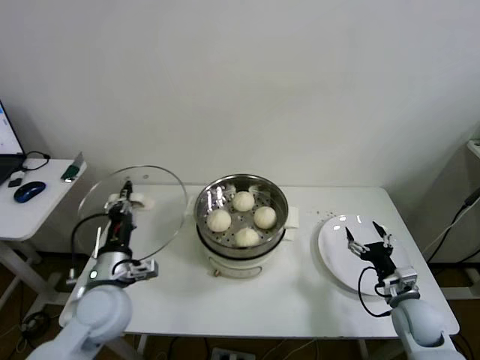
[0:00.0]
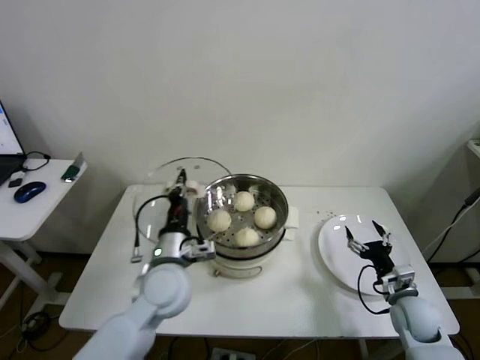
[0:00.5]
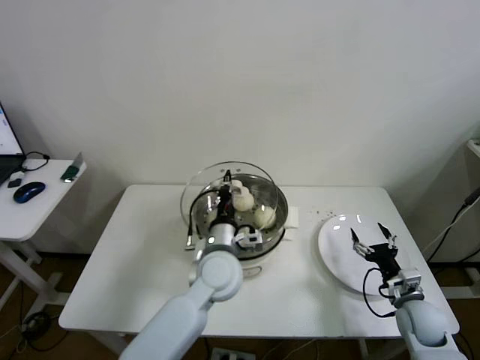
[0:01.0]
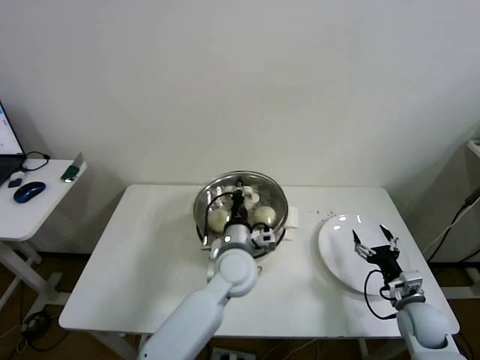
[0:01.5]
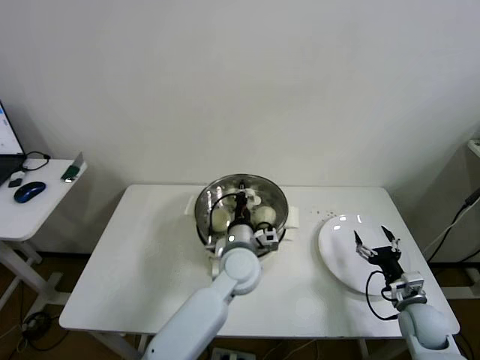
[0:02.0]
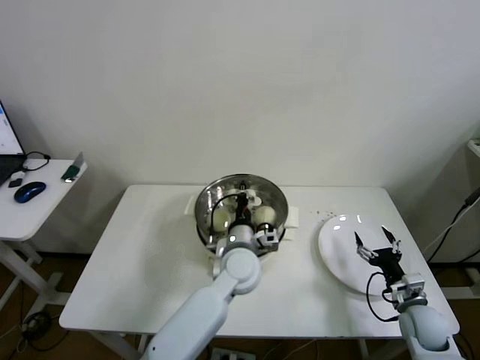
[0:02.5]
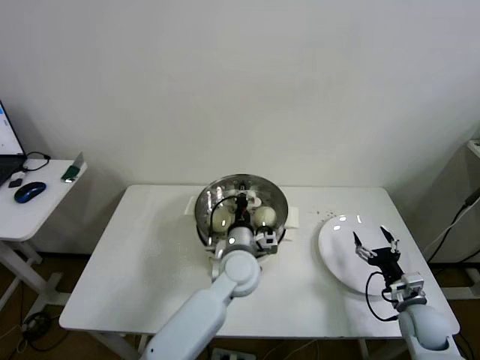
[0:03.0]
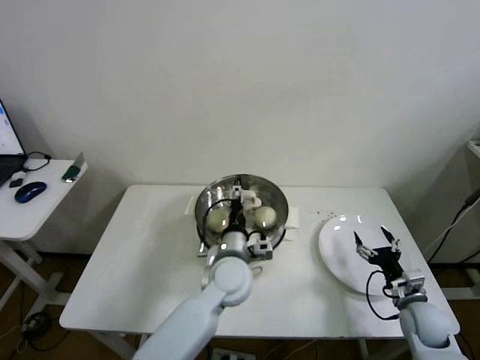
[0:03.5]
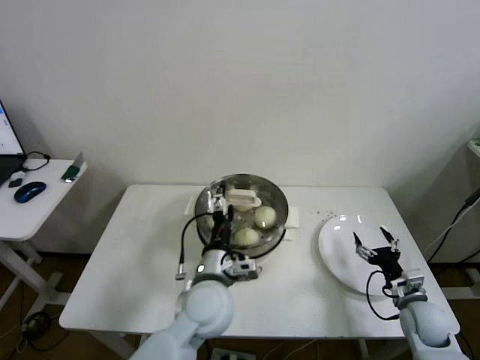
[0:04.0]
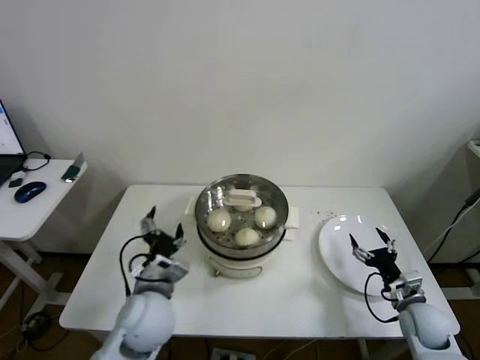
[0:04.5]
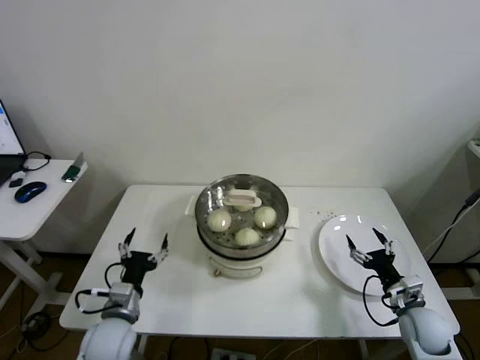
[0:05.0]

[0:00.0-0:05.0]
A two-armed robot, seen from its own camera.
Step, 0:00.0 to 0:03.5: Place the pot lid on the steamer with left gripper.
0:00.0 to 0:02.5: The left gripper travels to the right by roughly 25 cm.
0:02.5 to 0:05.0: The left gripper heads to the left and backward, covering some 30 cm, and opens.

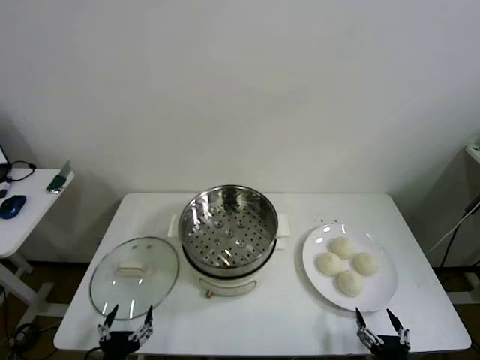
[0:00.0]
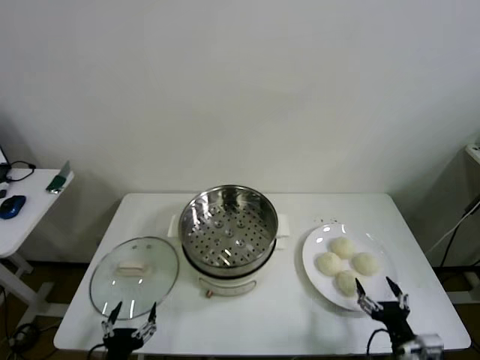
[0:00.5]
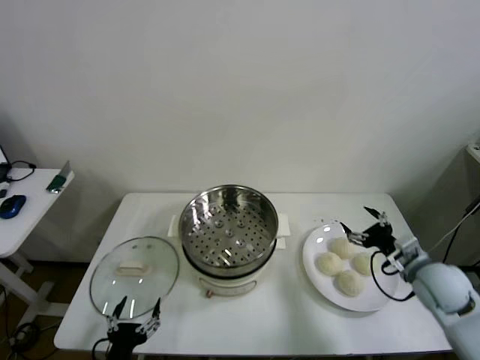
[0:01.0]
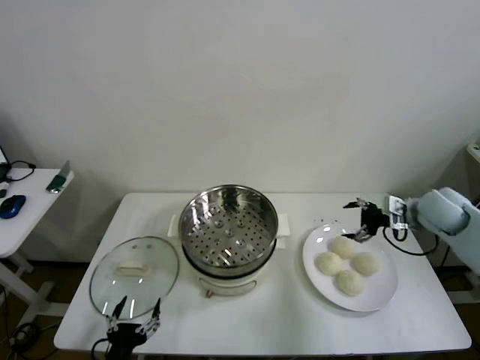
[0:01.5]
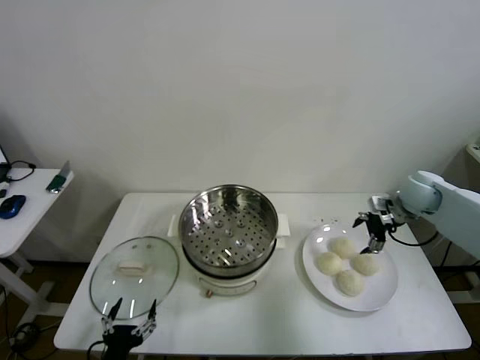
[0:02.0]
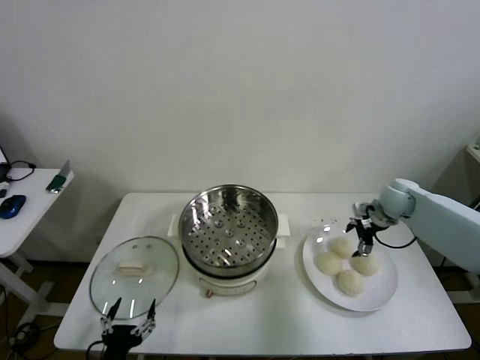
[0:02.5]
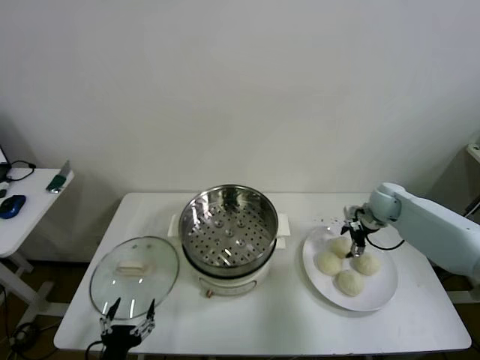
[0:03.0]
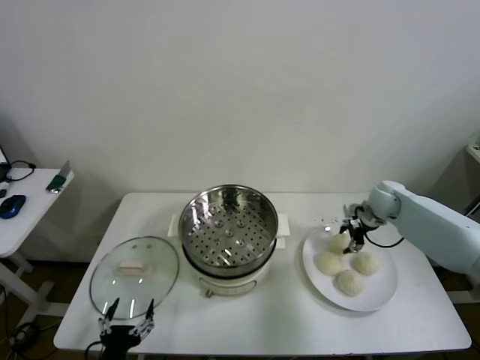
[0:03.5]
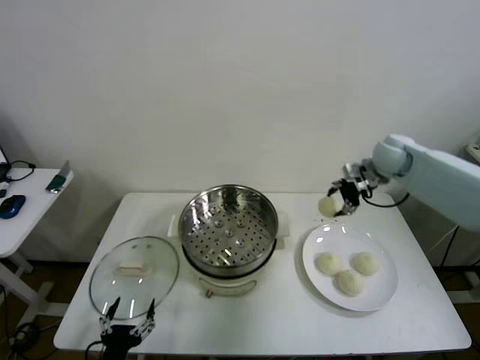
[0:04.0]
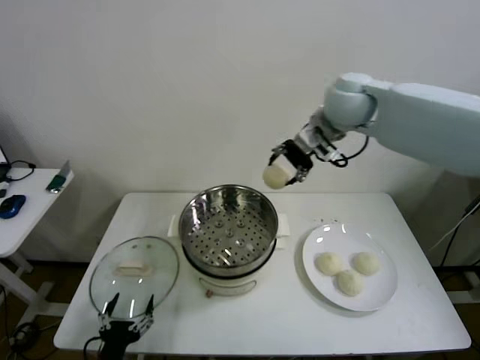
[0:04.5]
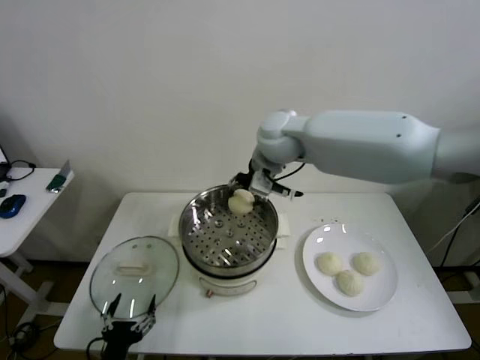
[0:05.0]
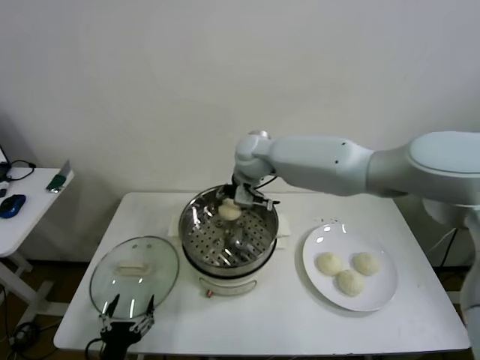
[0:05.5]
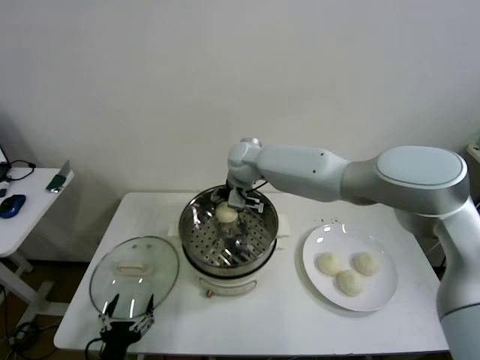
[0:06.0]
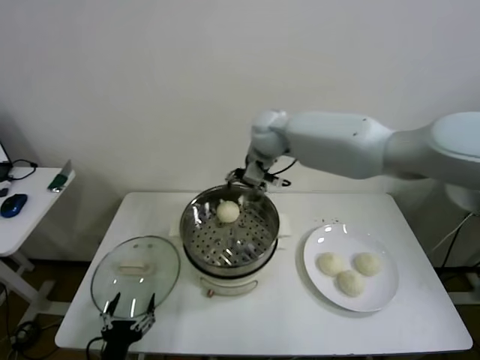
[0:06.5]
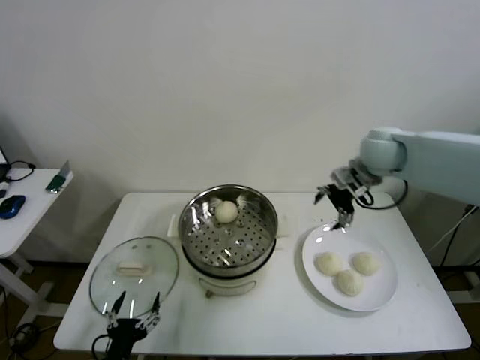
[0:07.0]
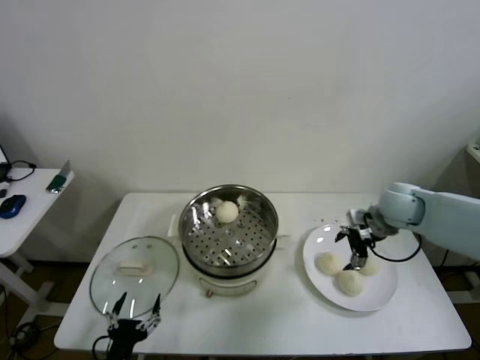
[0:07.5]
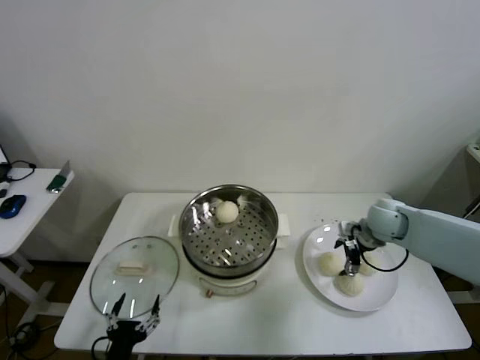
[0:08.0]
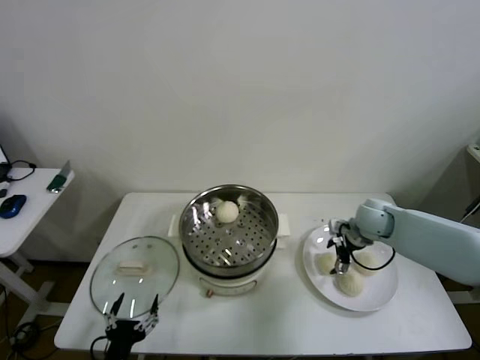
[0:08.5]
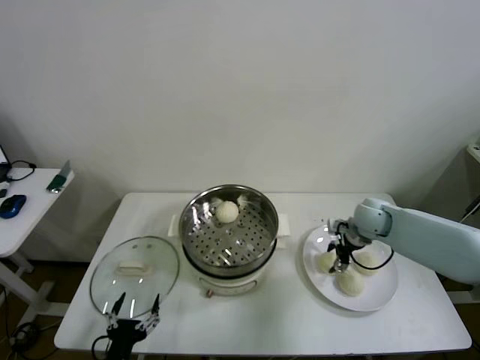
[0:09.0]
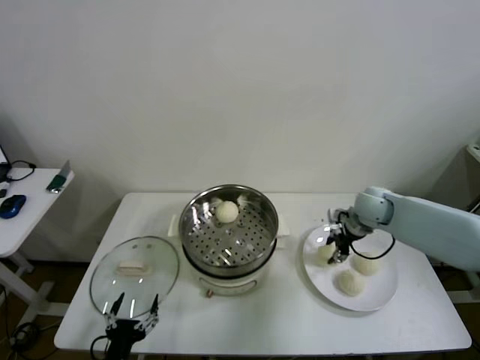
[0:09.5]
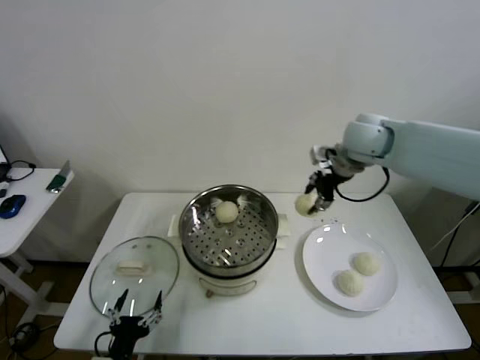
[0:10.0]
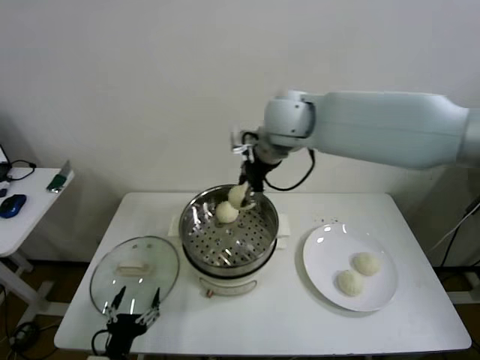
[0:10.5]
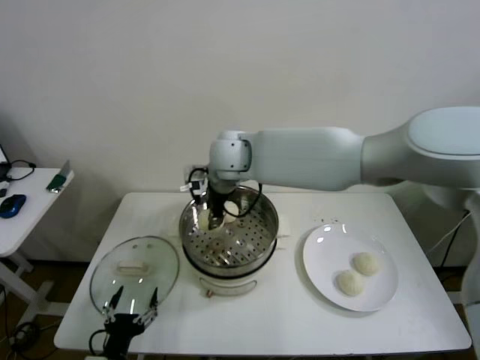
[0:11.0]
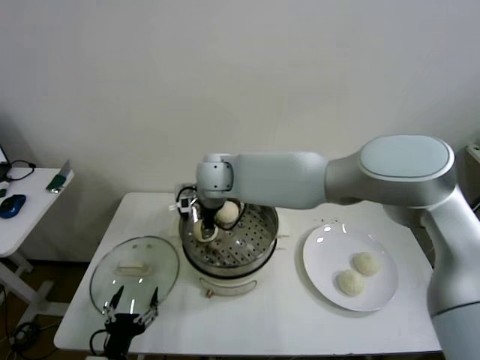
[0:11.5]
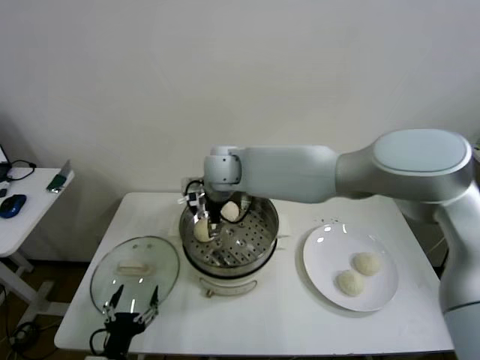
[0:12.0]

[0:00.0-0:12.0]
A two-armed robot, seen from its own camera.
Step, 0:00.0 to 0:03.0: Grasp the baozi in the plate with right gripper.
Step, 0:03.5 to 0:06.0: Place the baozi on the steamer with right gripper.
Step, 0:06.5 to 0:09.0: Grasp the baozi in the plate with right gripper.
Step, 0:09.5 to 0:11.5: Place the baozi on the steamer with right gripper.
0:02.0 to 0:04.0: The right gripper is displaced upward, to the left and forward by some 15 cm, and closes its fingers.
0:04.0 to 0:06.0: The right gripper travels to the left by roughly 35 cm, and opens up.
0:06.0 to 0:08.0: The right gripper heads to the right, covering about 35 cm.
0:08.0 to 0:10.0: The right gripper is displaced upward and to the left by some 25 cm, and closes.
0:10.0 to 0:12.0: The right gripper goes approximately 25 cm to the left, and opens.

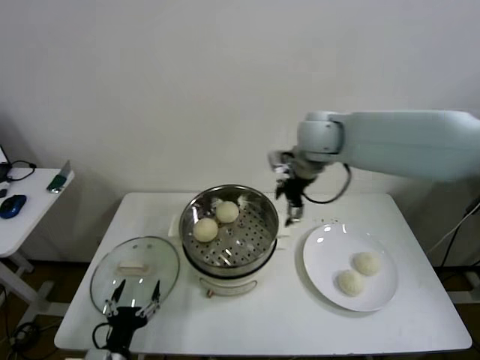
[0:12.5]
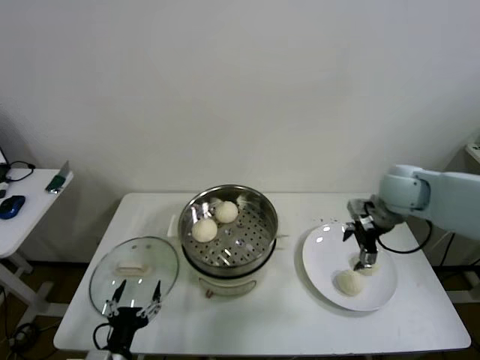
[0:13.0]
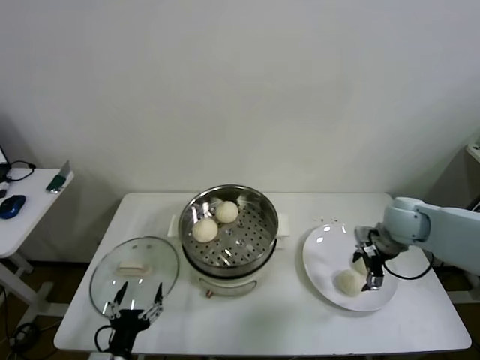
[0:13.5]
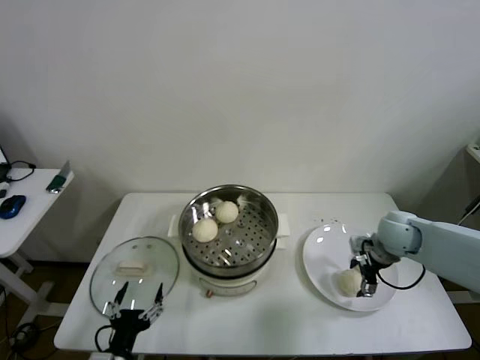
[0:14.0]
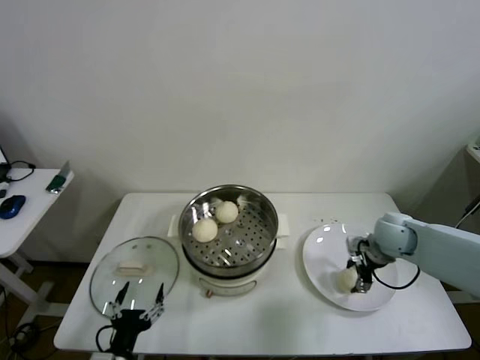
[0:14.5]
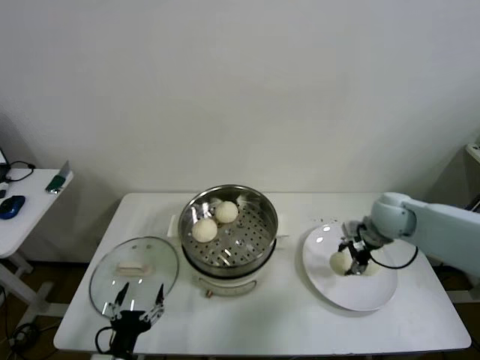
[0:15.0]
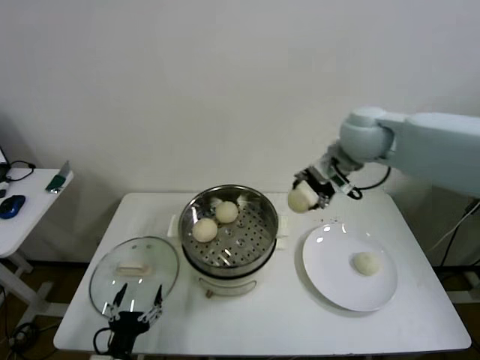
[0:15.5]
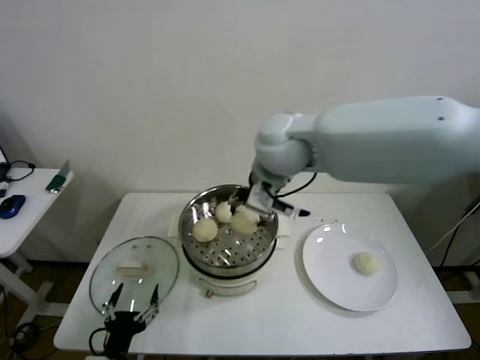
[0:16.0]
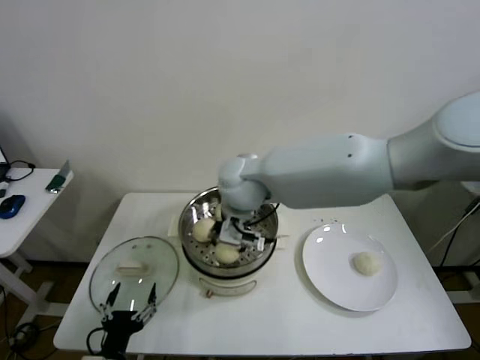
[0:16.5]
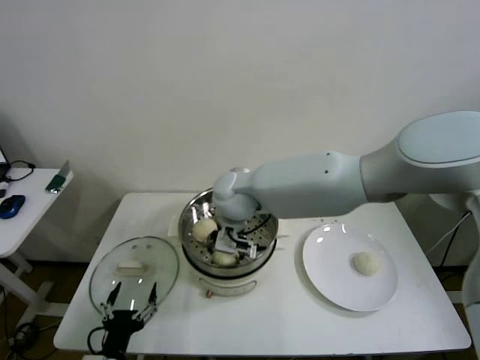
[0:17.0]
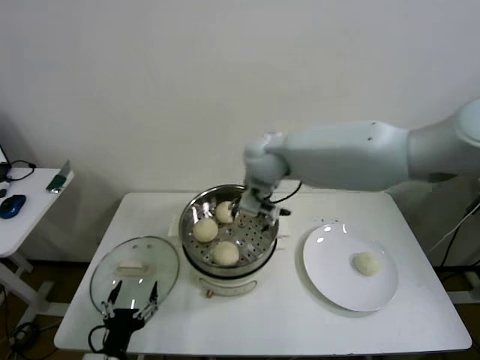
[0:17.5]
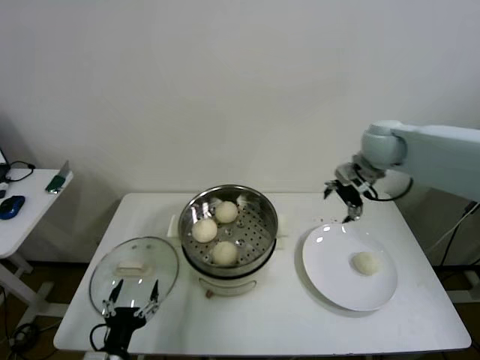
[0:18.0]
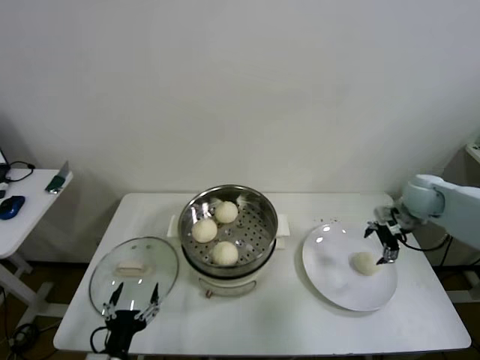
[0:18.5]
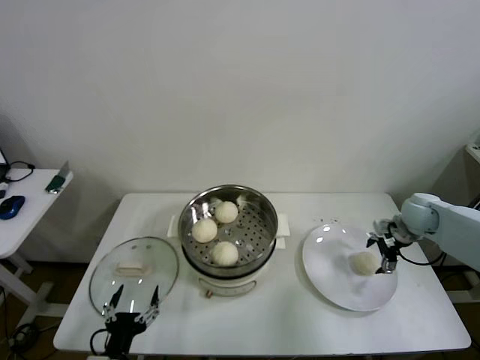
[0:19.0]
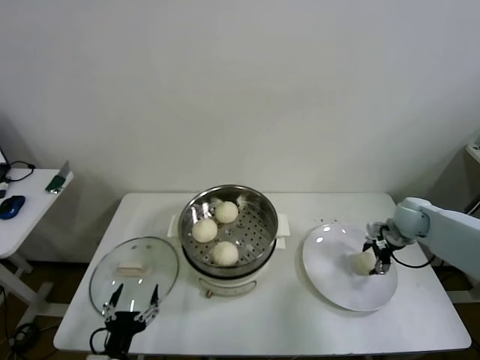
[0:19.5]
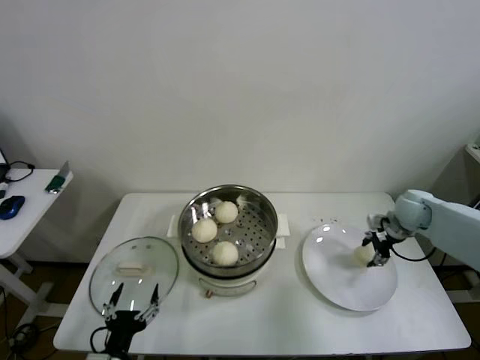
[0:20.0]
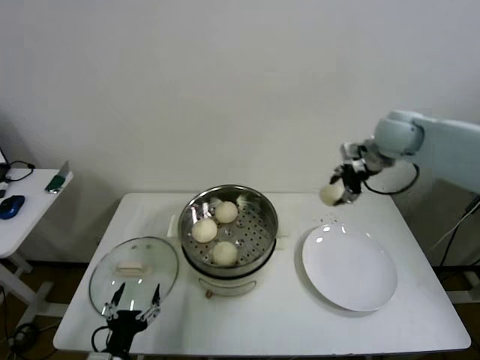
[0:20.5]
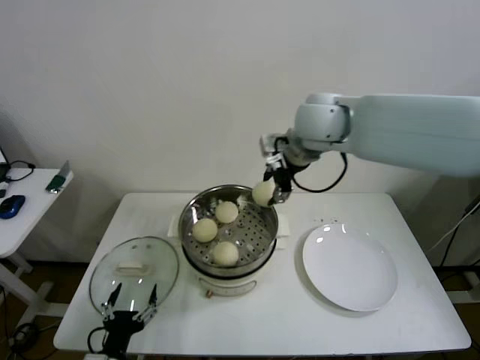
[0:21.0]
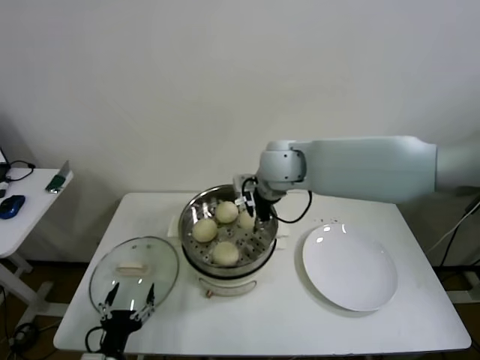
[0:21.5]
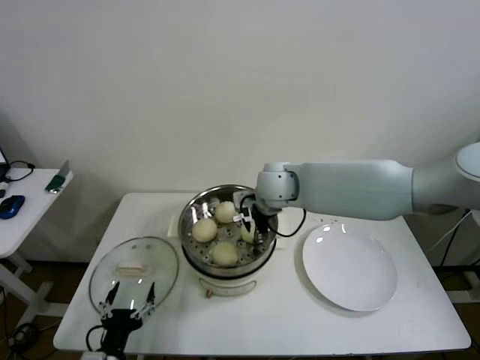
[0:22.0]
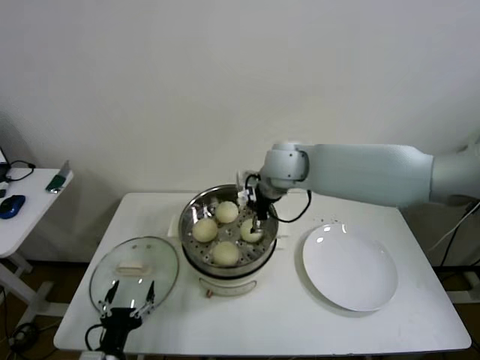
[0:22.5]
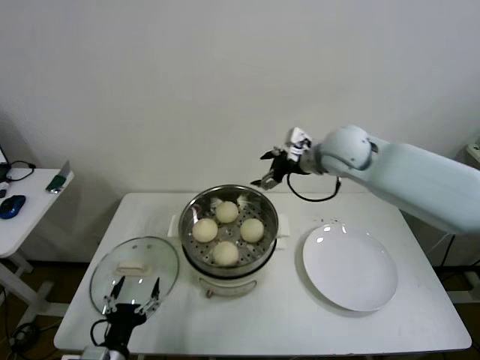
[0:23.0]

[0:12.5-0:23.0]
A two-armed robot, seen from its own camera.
Step, 0:12.5 to 0:14.0: Grasp the baozi in the plate with right gripper.
Step, 0:14.5 to 0:17.0: Place the baozi on the steamer with right gripper.
Step, 0:17.5 to 0:19.5: Grasp the baozi in the plate with right gripper.
Step, 0:20.0 to 0:22.0: Place the baozi on the steamer with right gripper.
0:12.5 to 0:14.5: The right gripper shifts approximately 30 cm downward and to the right, and closes up.
0:14.5 to 0:16.5: The right gripper heads to the left and upward, covering some 40 cm.
0:16.5 to 0:19.0: The right gripper heads to the right, covering approximately 40 cm, and opens up.
0:19.0 to 0:21.0: The right gripper shifts roughly 40 cm to the left and upward, and closes its fingers.
0:21.0 to 0:23.0: The right gripper shifts roughly 10 cm downward and to the right, and opens.
